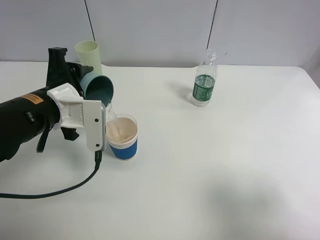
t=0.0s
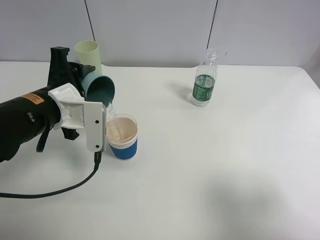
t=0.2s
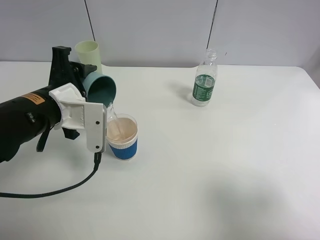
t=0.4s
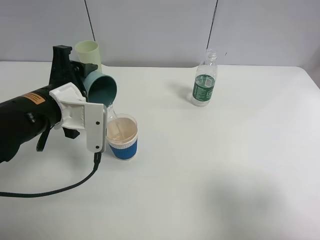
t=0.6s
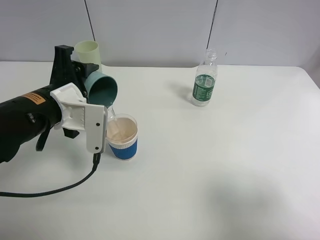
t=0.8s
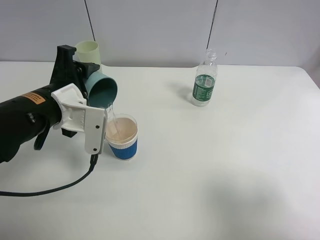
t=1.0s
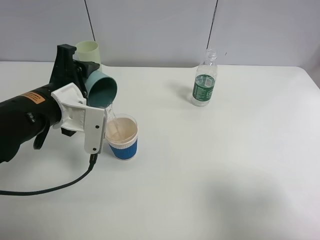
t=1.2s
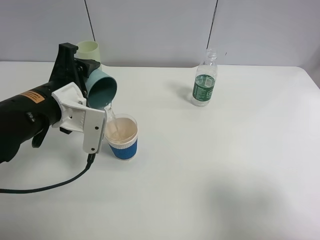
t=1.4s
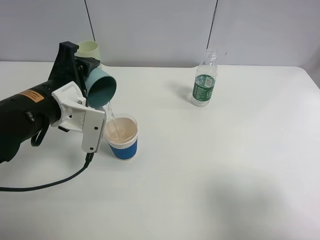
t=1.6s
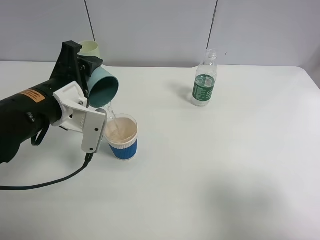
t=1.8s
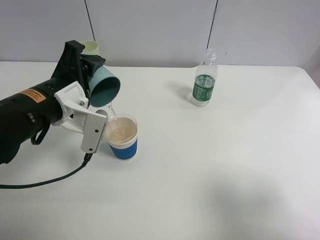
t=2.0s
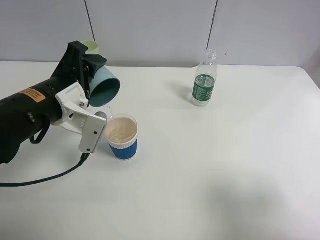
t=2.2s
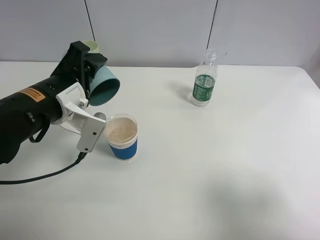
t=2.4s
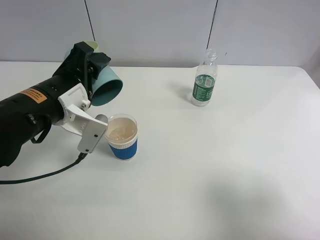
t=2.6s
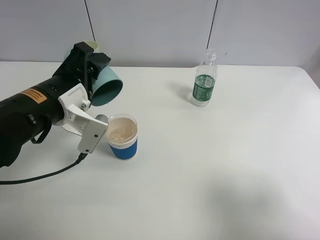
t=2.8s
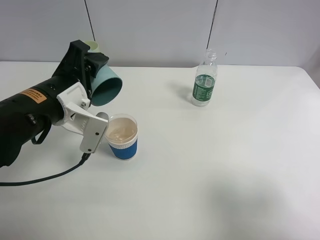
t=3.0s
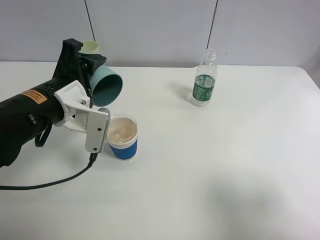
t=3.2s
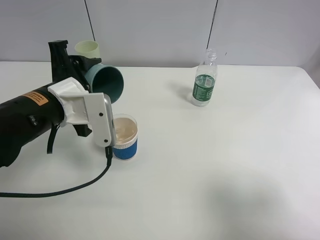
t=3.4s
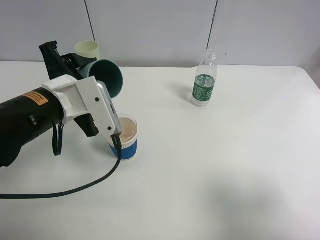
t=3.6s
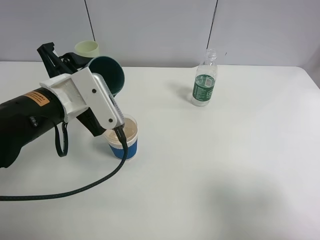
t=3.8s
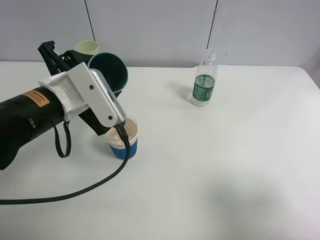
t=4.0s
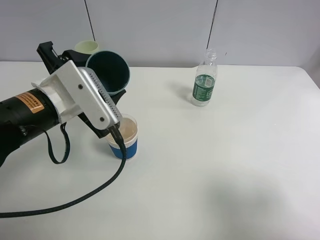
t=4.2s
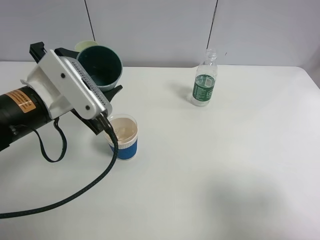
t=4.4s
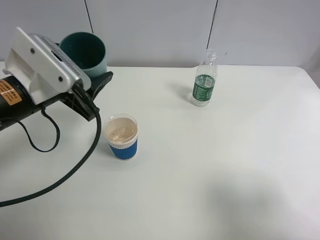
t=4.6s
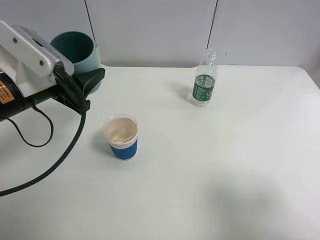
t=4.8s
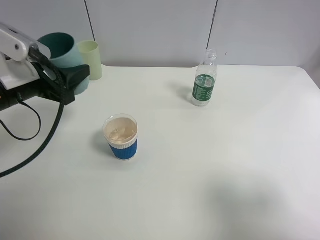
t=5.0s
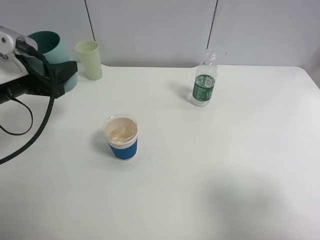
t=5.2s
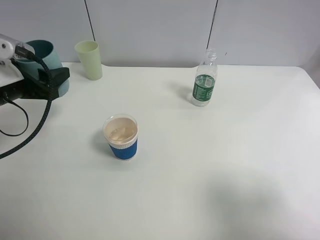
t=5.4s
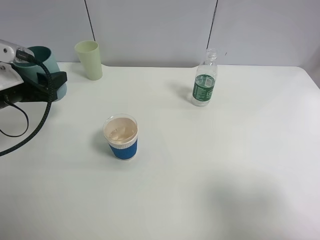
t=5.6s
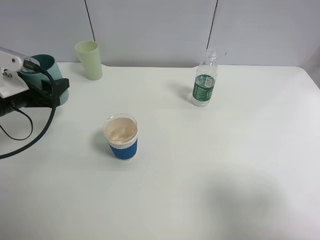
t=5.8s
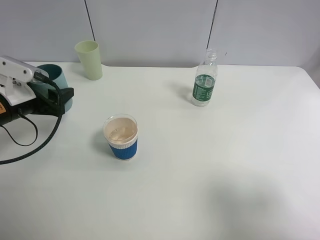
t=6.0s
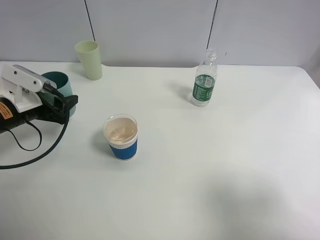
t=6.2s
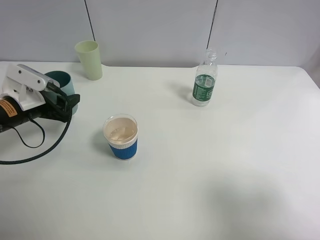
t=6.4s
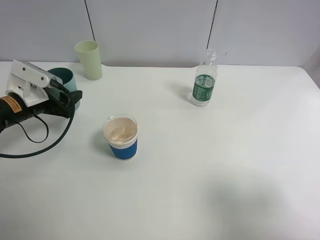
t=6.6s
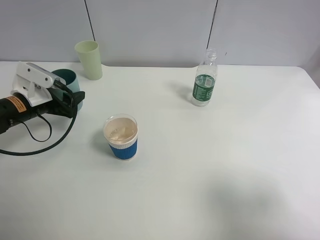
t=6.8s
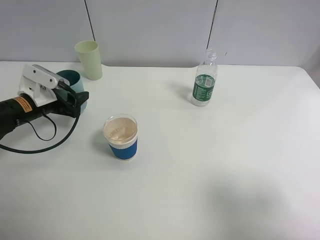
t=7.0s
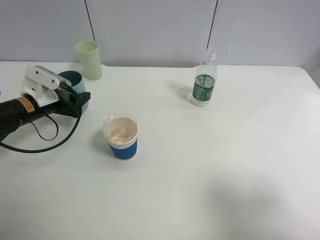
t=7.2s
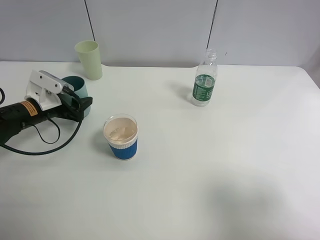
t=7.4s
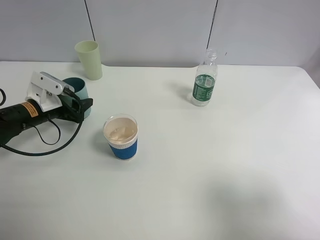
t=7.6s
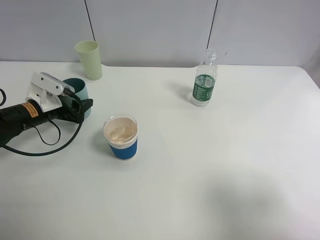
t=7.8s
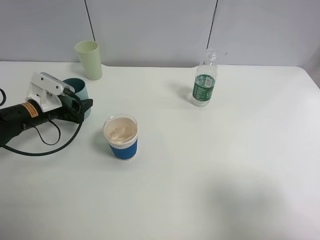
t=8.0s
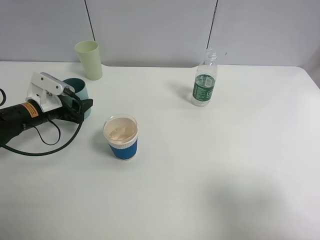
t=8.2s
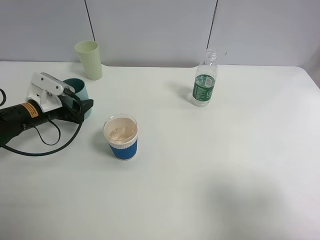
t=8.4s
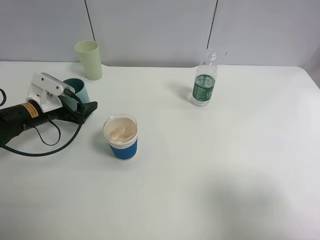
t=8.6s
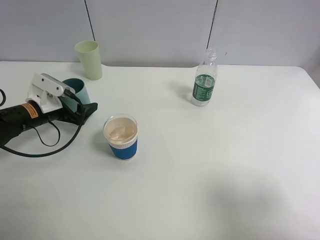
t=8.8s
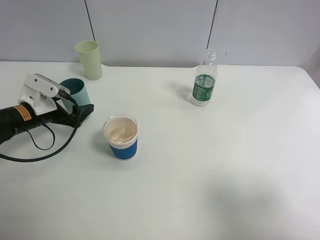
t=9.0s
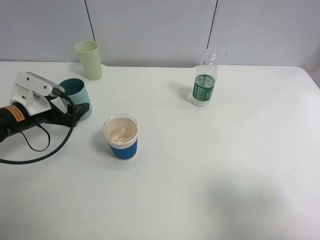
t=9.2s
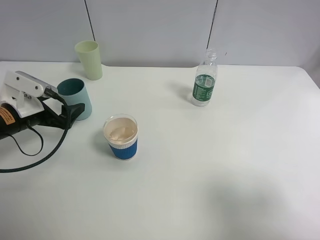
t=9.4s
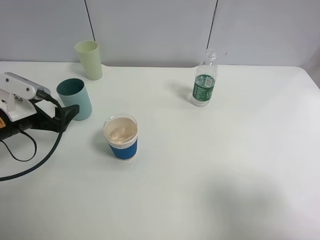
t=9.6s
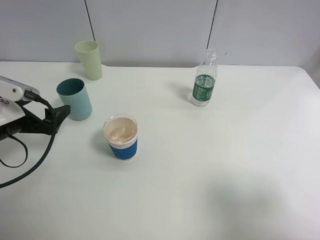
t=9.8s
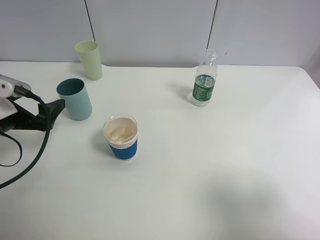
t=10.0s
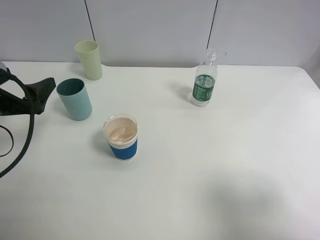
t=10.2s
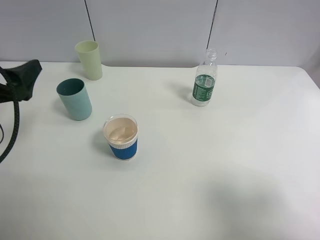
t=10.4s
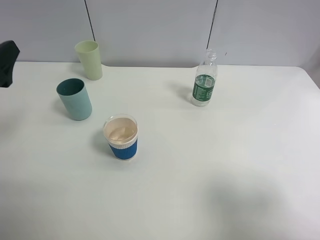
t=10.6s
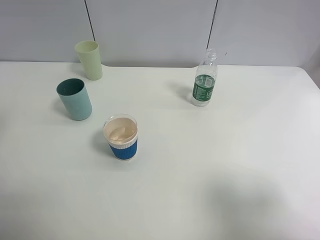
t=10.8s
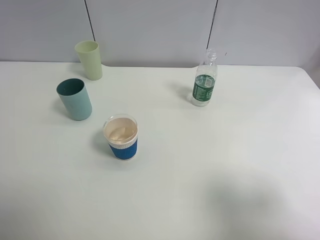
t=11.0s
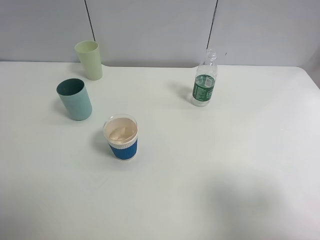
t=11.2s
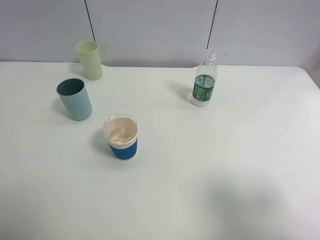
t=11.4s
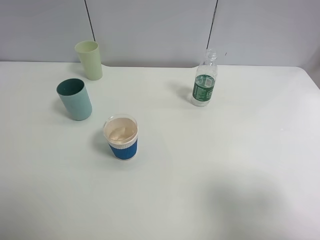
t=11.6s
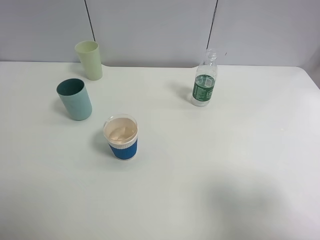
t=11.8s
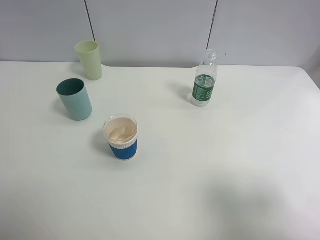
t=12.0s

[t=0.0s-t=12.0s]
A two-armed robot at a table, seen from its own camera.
Task of the whole recording: use a clamp to hold the bottle of the drink, pour the beverage into a random cup, then clamp the cup containing the drink and pour the drink into another random cup.
Step, t=0.0s to t=3.2s: Pour water into the paper cup with left gripper.
Step, t=3.4s to t=8.4s: Place the blue plastic cup on the table with left gripper.
t=0.0s to t=1.6s: The grippers move only a little.
t=1.6s to t=3.0s: The grippers make only small movements.
t=4.4s to t=6.0s: The left gripper is displaced to the left, downward and forward by some 15 cm.
t=6.0s to t=7.6s: The left gripper moves downward and forward, approximately 10 cm.
t=7.6s to t=9.0s: The left gripper opens its fingers.
t=9.0s to t=10.4s: The left gripper heads upward and backward, covering some 15 cm.
t=10.4s to t=12.0s: The left gripper travels backward and upward by some 20 cm.

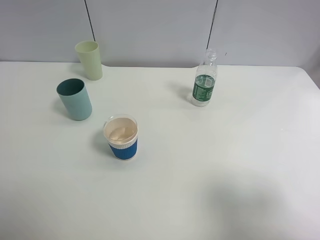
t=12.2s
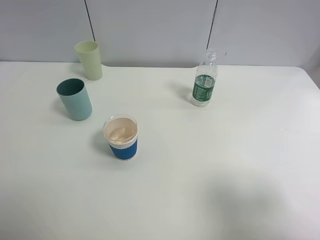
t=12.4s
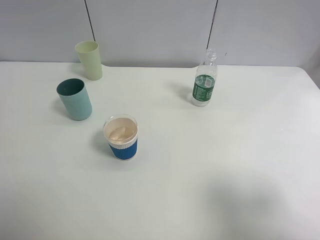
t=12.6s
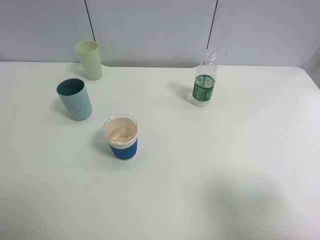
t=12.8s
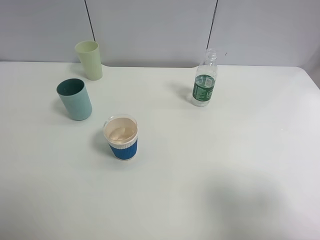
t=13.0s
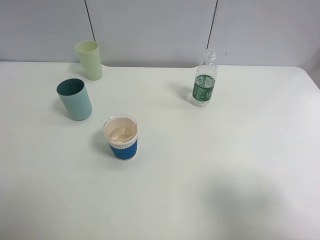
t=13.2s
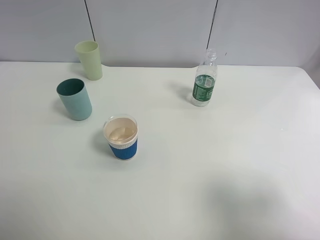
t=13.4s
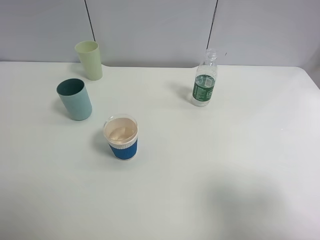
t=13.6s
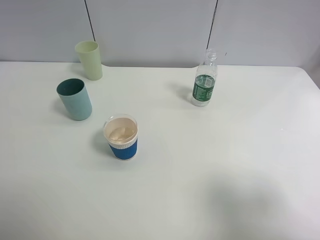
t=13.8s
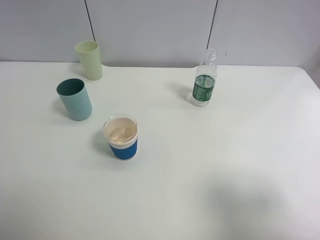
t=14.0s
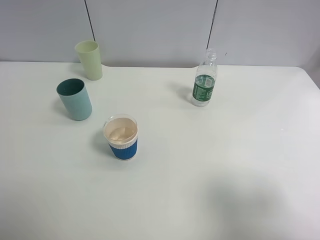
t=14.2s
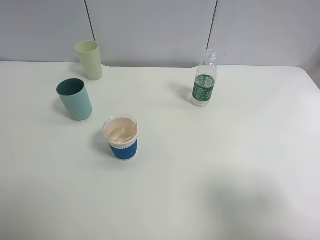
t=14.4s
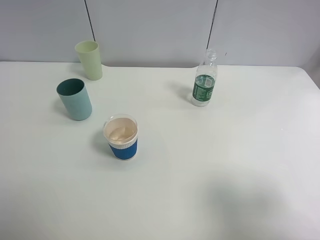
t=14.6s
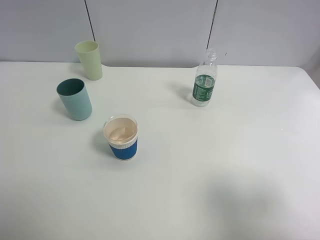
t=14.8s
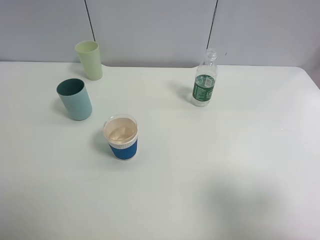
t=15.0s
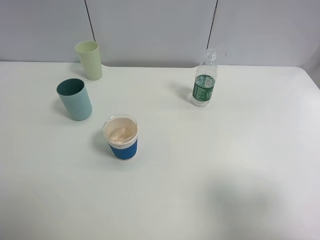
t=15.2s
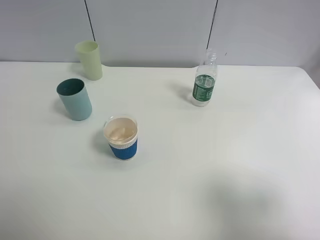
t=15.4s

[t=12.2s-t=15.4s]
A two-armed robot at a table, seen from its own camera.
Task of the whole recording: use a clamp to hold the bottle of the drink, pour the beverage into a random cup, then clamp the cup containing the drink and pour the drink into another random cup.
t=13.8s to t=15.4s: Both grippers stay about where they are.

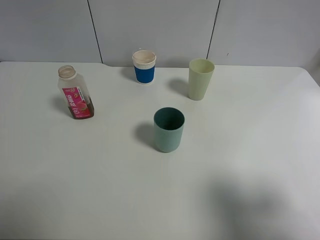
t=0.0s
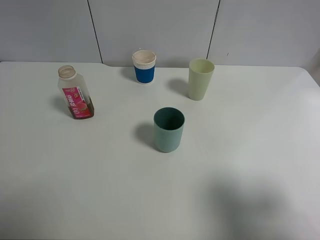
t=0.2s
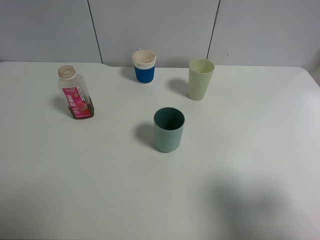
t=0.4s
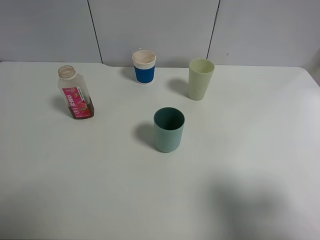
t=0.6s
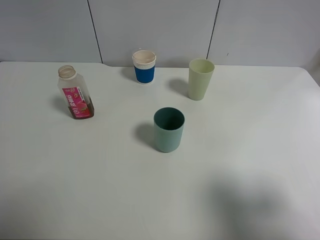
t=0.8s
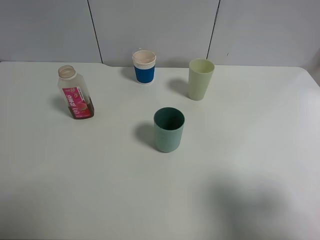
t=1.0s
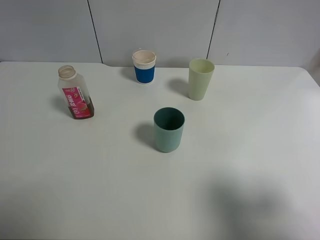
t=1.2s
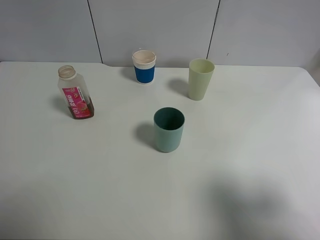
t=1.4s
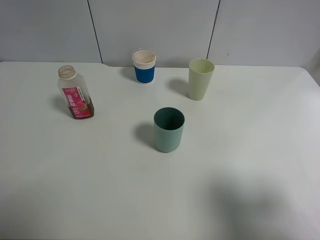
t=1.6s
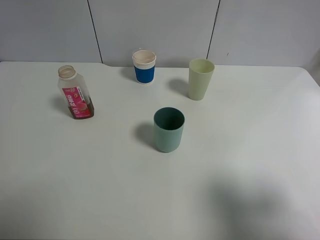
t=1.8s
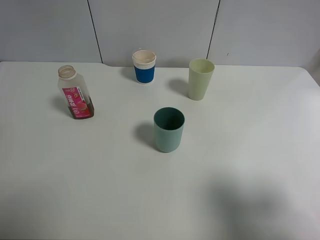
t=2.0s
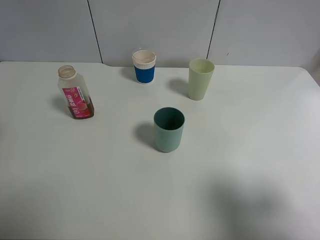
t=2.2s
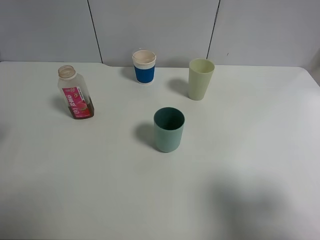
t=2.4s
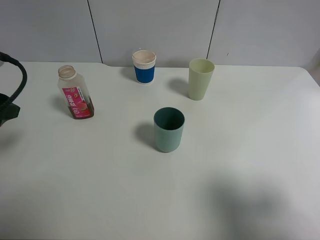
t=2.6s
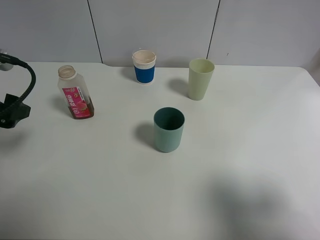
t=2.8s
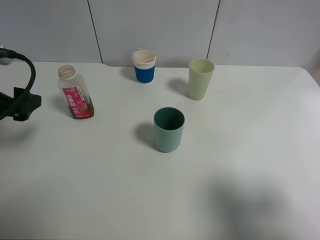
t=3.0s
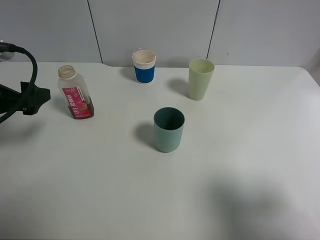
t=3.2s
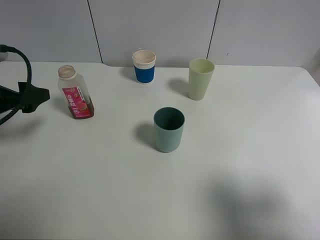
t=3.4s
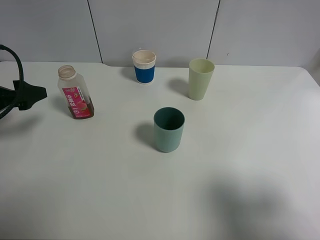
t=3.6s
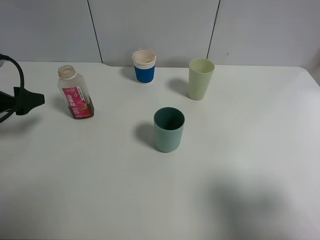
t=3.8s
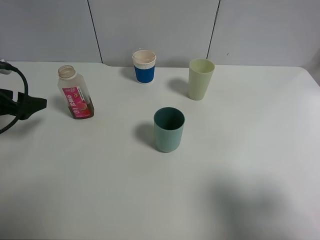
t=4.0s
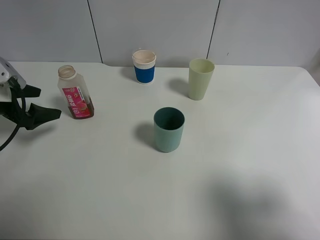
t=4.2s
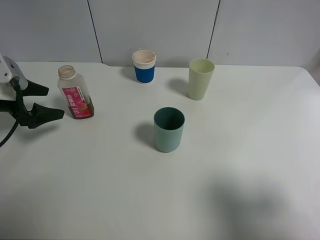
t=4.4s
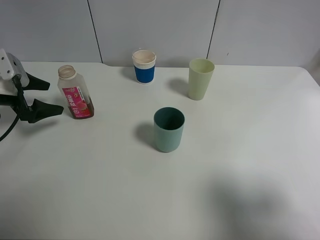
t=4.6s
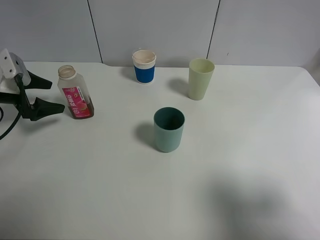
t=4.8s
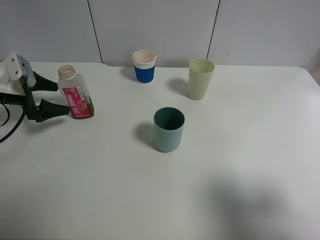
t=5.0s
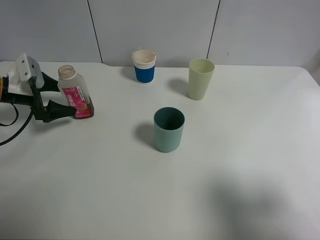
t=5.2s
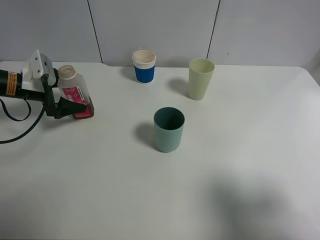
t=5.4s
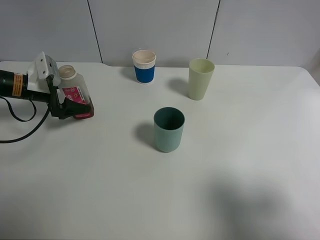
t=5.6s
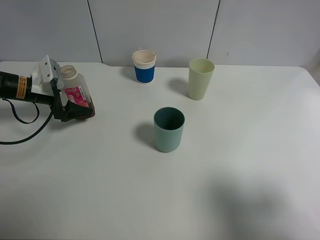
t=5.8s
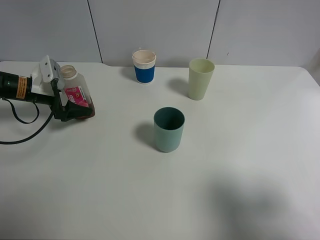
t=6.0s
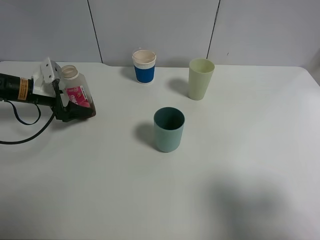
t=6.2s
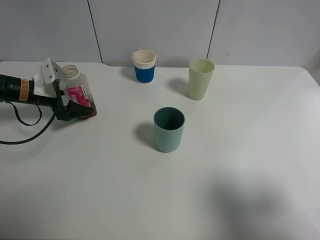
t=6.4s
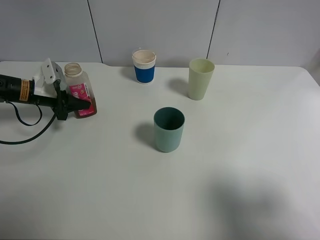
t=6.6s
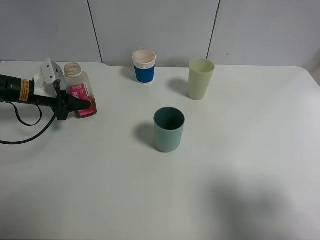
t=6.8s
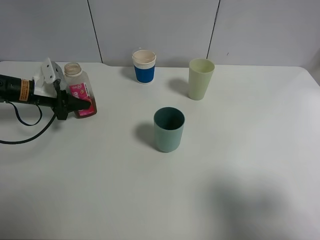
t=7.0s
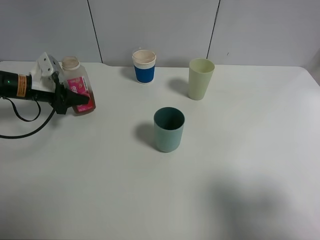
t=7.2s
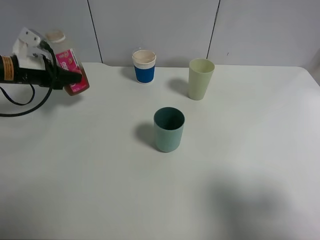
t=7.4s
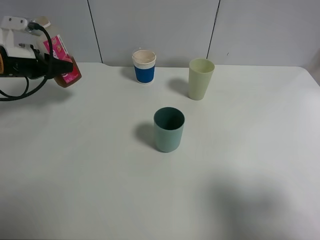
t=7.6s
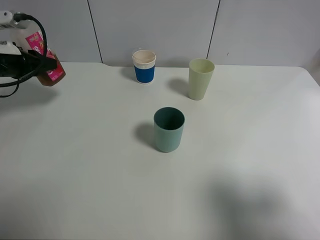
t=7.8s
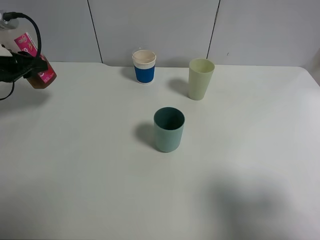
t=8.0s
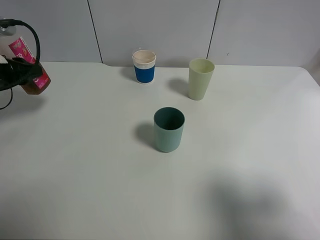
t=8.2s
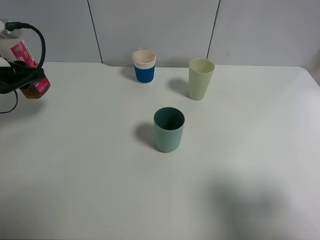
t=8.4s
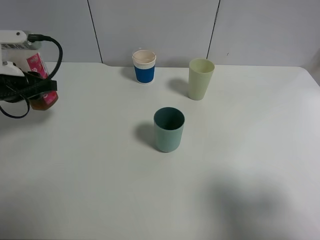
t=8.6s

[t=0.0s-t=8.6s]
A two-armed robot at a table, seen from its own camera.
Task of the whole recording: use a clamp to hold the bottle of the drink, pour the beverage into a random cup, then clamp the cup containing the drink and pour the drink into another random cup.
Step, t=0.0s to t=7.2s: Pick up the drink bottle with left gripper.
t=1.4s to t=2.8s: The left gripper moves forward and downward, approximately 15 cm.
t=2.8s to t=4.4s: The left gripper goes roughly 15 cm forward, downward and to the left.
t=4.4s to t=5.8s: The left gripper shifts roughly 5 cm forward.
t=5.8s to t=7.2s: The left gripper closes its fingers.
t=7.2s to t=8.6s: The left gripper goes roughly 15 cm backward and upward.
